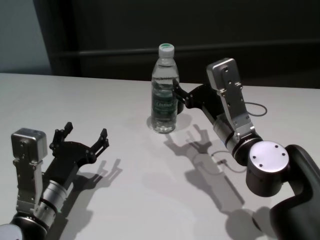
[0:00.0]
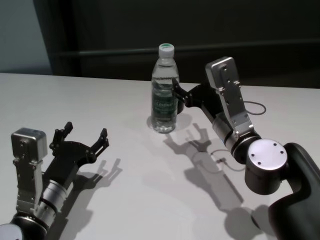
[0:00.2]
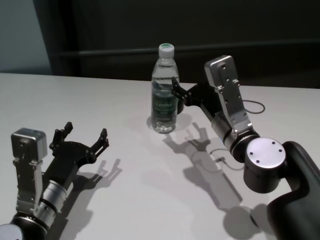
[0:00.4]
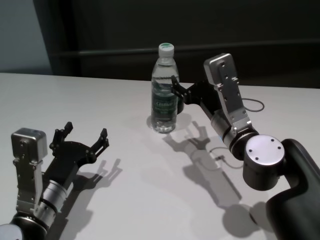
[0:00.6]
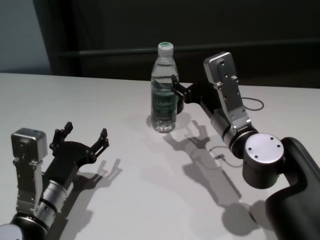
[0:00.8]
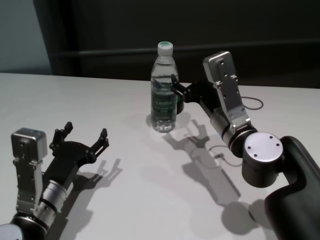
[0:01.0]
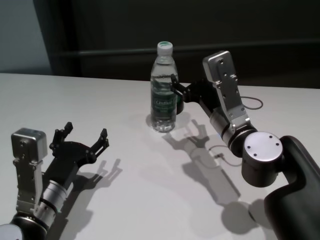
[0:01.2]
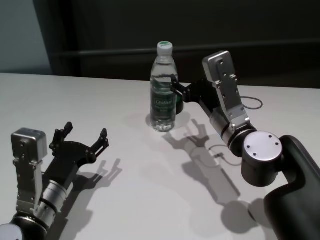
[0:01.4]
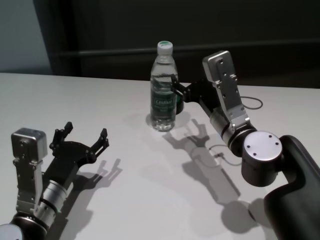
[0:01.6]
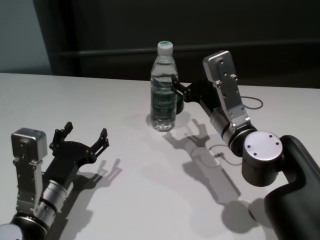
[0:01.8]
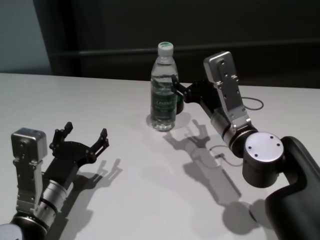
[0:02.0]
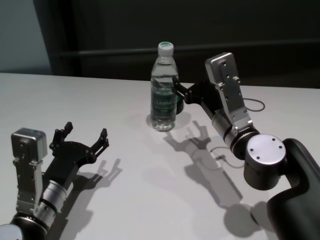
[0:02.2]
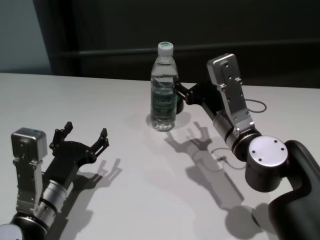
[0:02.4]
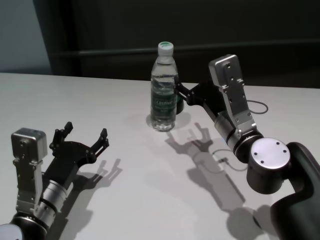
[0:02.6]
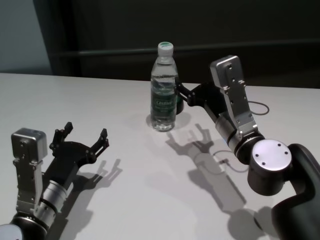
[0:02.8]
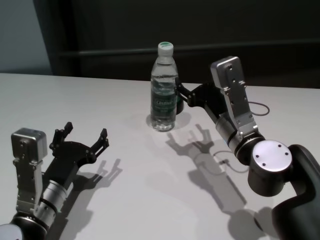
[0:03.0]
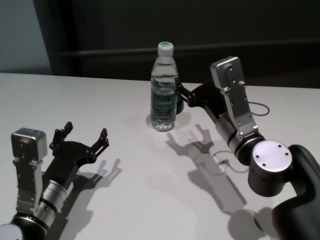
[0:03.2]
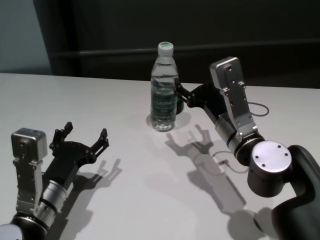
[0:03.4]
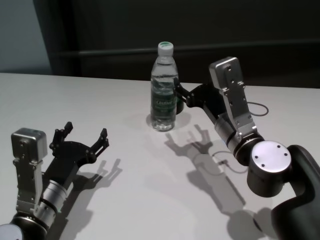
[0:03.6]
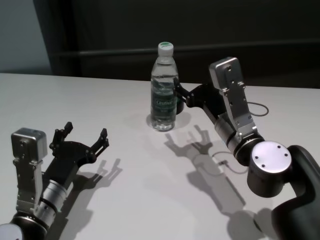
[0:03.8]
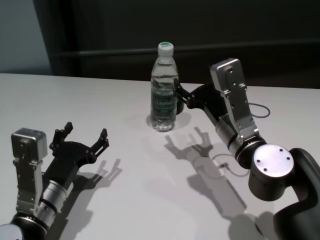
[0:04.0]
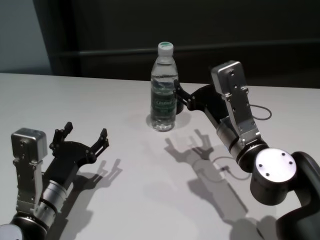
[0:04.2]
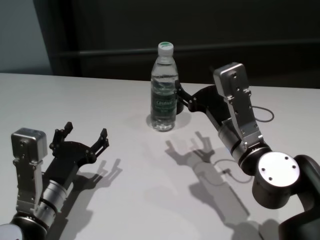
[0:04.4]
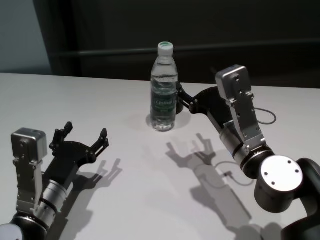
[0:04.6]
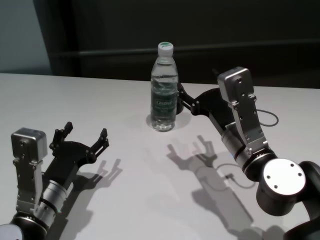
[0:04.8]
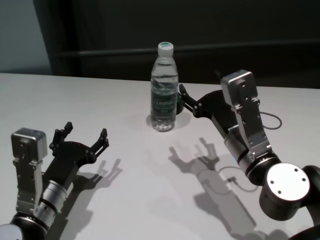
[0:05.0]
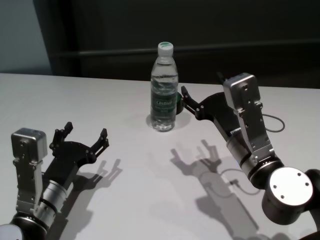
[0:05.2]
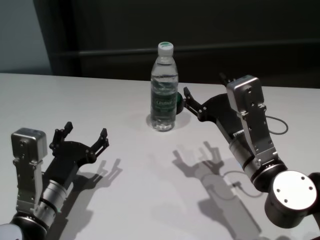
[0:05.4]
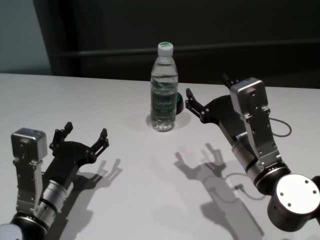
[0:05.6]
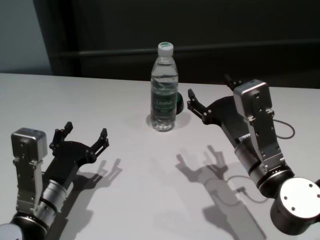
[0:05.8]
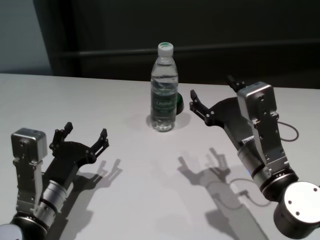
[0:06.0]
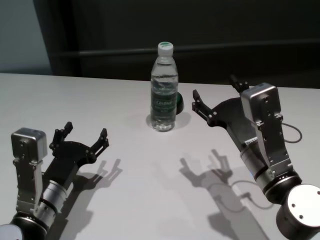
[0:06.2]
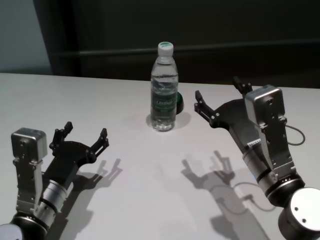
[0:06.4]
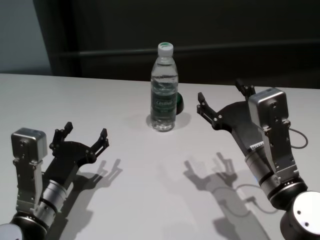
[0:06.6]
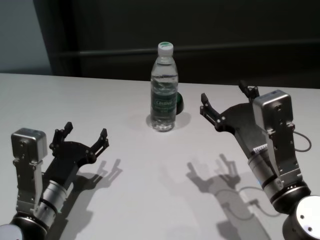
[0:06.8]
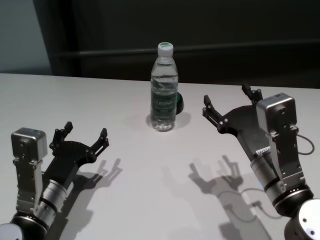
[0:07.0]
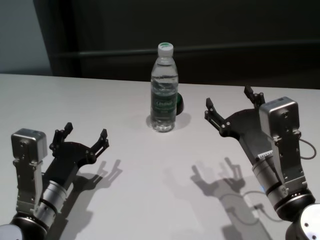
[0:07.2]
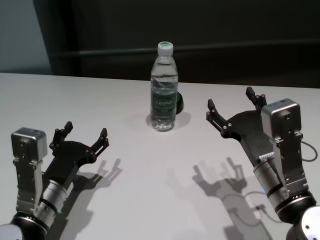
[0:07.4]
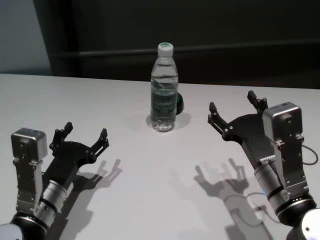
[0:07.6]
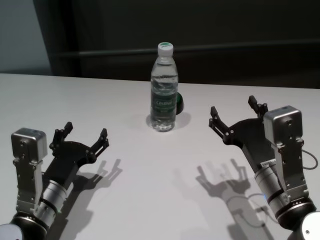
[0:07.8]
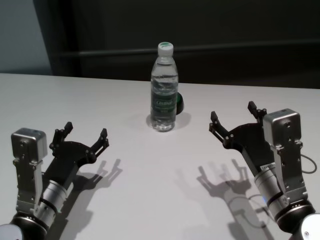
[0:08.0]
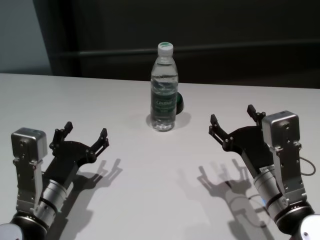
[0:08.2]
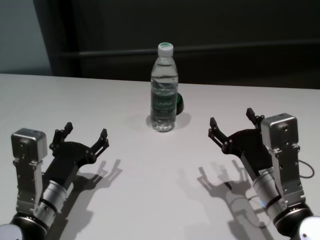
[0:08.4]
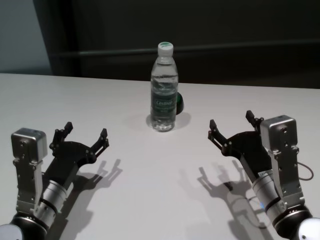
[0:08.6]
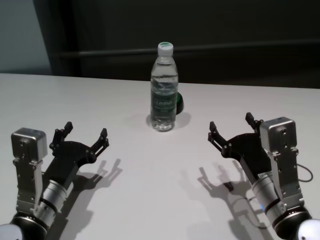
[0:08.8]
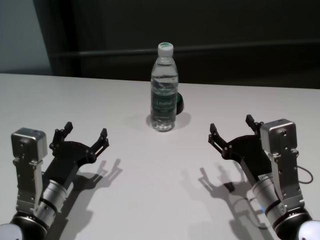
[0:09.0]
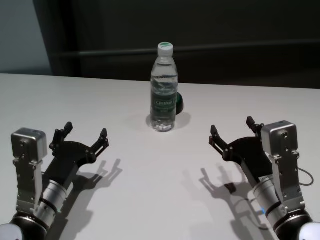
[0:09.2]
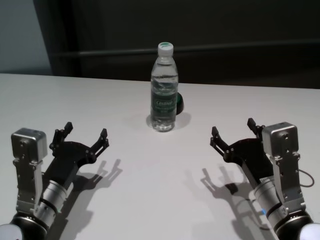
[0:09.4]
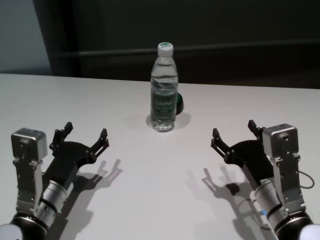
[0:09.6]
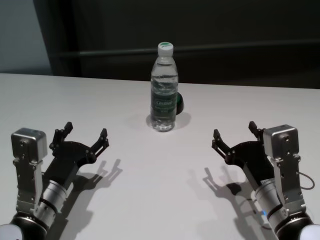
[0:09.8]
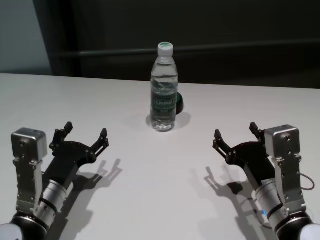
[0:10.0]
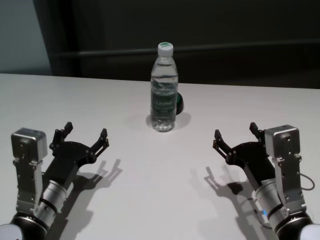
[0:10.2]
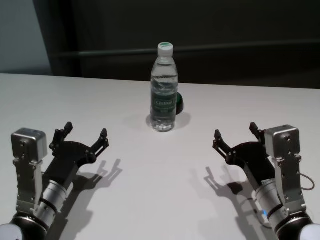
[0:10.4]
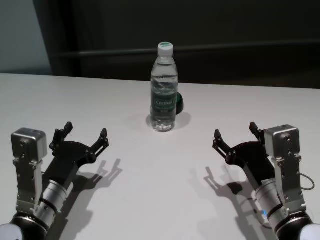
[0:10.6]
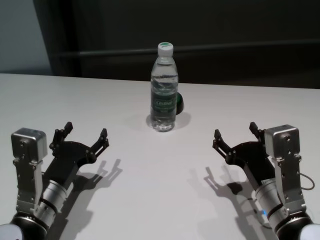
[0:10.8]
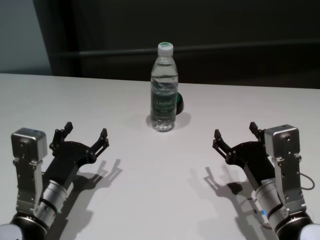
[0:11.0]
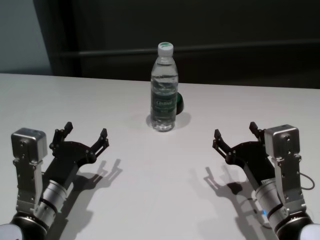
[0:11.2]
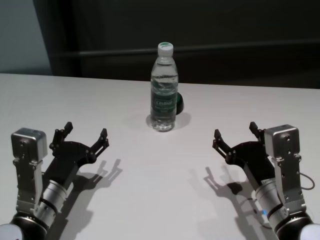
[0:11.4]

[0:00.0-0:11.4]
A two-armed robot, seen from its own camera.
Task of the whole recording: return to a safe position after touching an obstacle with your arm on the white table.
Step, 0:00.0 to 0:05.0: Touch the bottle with right gripper.
